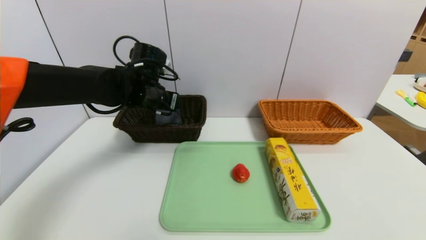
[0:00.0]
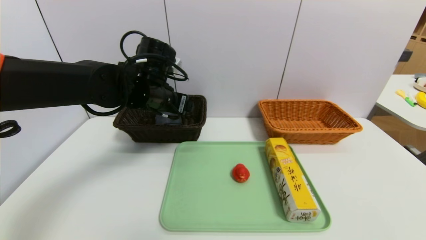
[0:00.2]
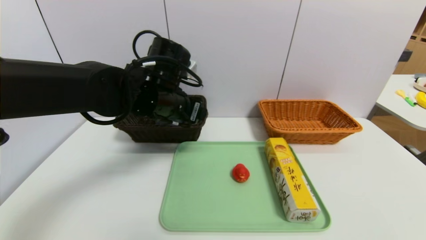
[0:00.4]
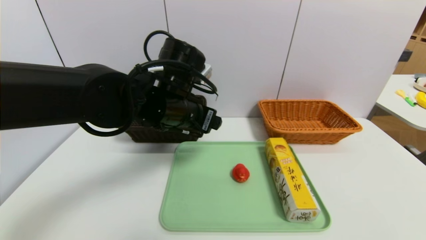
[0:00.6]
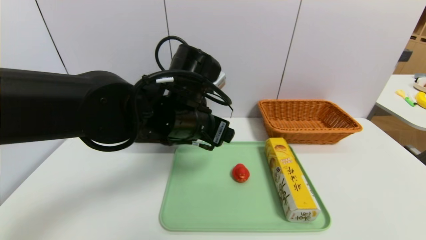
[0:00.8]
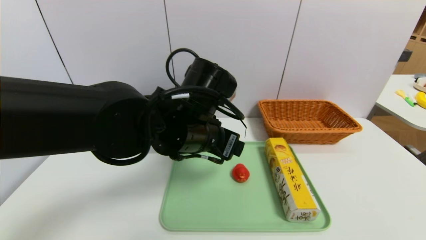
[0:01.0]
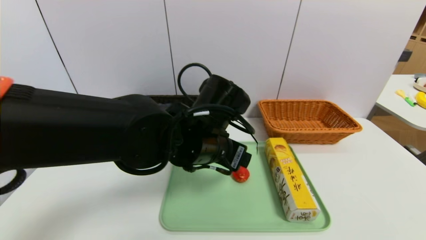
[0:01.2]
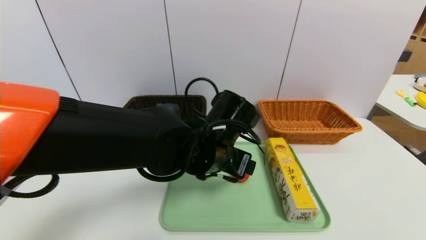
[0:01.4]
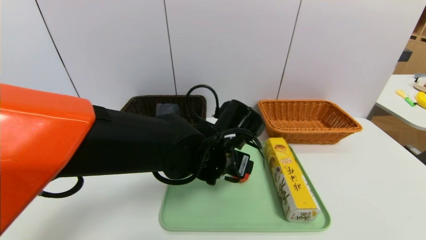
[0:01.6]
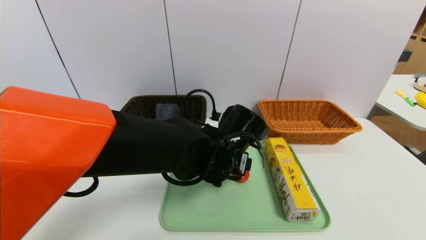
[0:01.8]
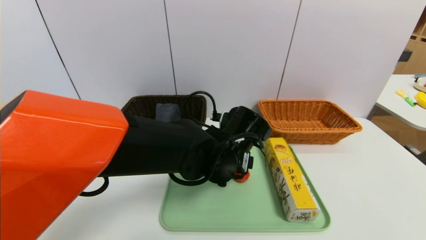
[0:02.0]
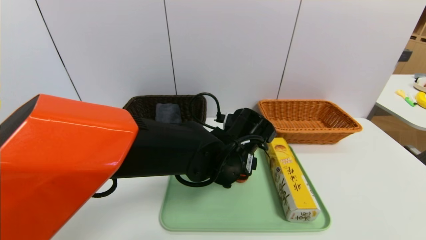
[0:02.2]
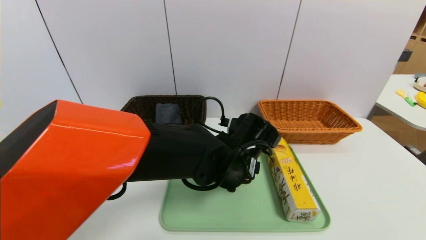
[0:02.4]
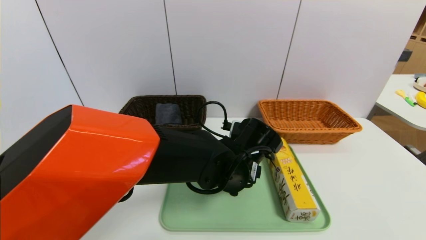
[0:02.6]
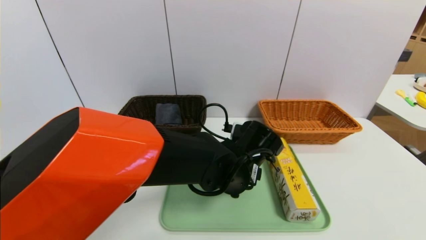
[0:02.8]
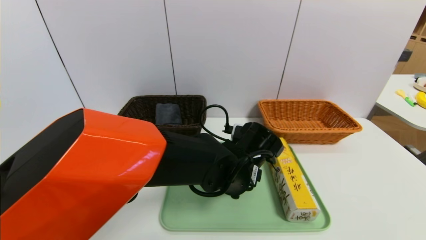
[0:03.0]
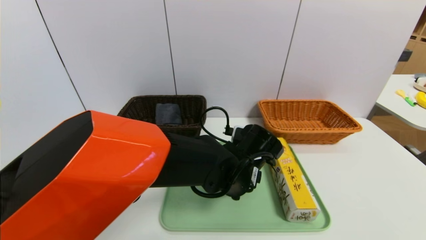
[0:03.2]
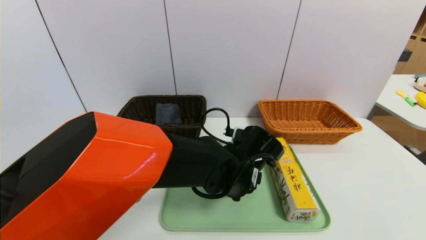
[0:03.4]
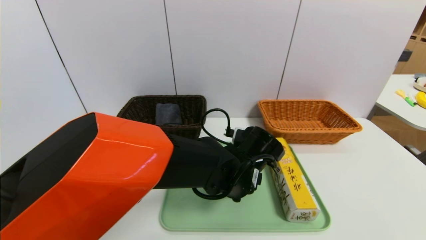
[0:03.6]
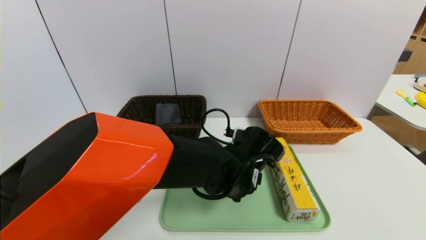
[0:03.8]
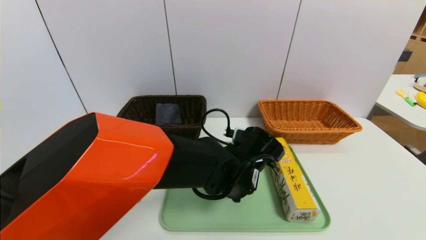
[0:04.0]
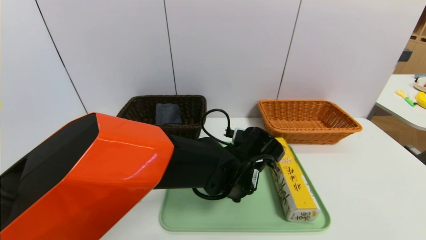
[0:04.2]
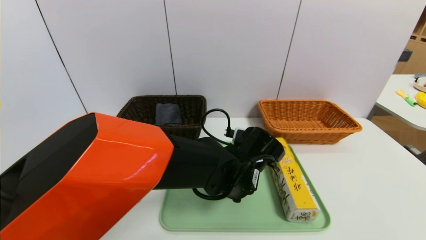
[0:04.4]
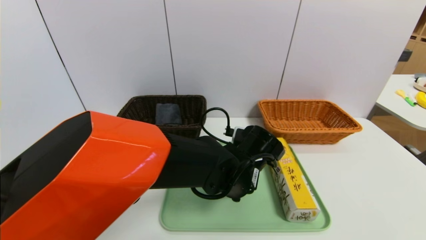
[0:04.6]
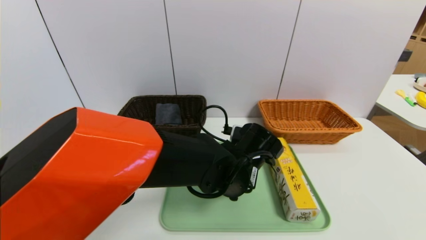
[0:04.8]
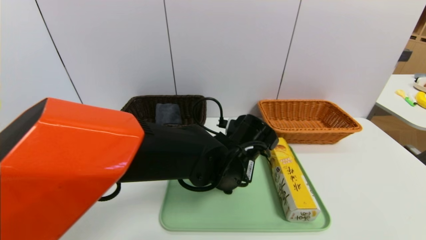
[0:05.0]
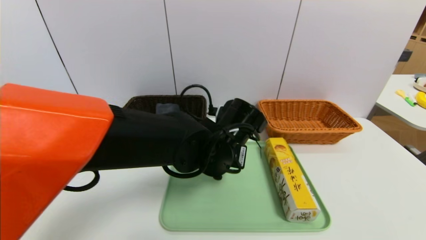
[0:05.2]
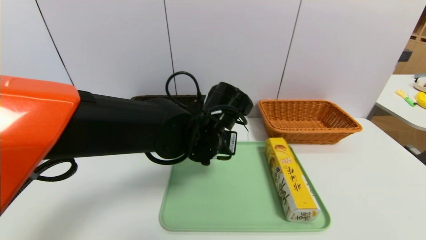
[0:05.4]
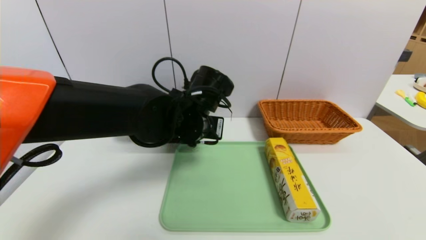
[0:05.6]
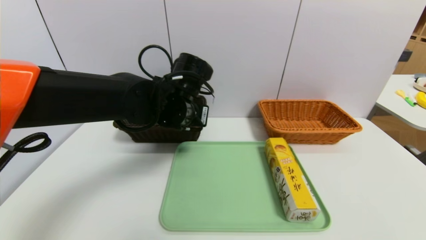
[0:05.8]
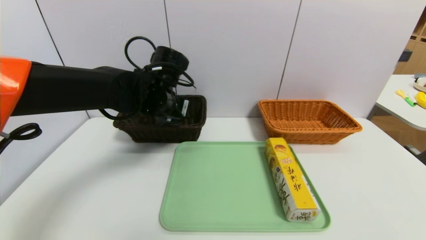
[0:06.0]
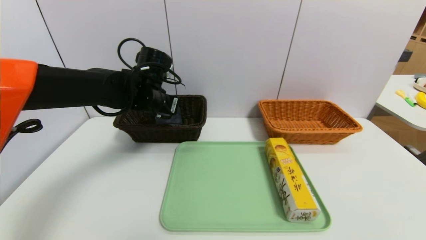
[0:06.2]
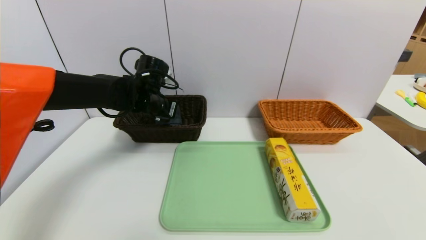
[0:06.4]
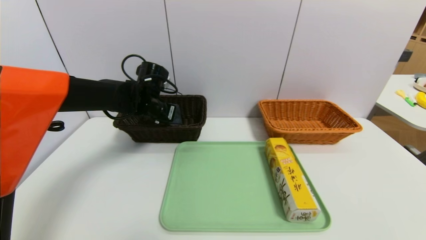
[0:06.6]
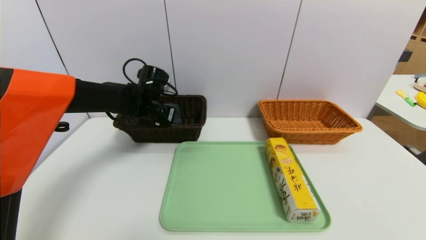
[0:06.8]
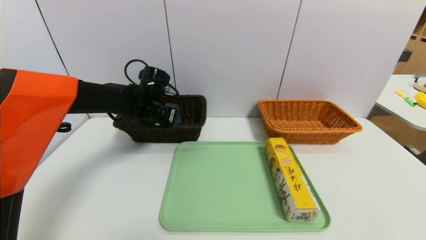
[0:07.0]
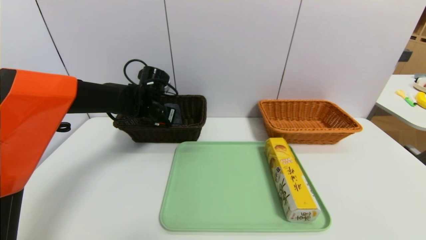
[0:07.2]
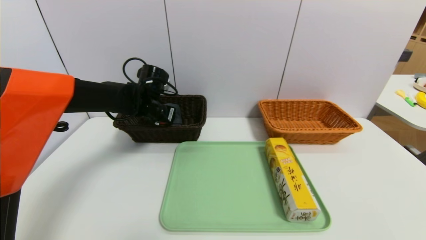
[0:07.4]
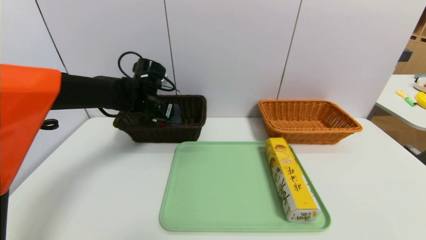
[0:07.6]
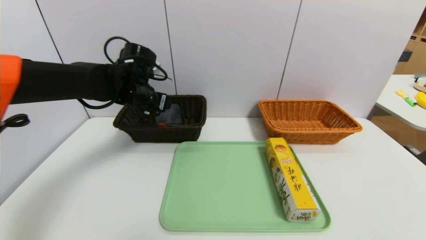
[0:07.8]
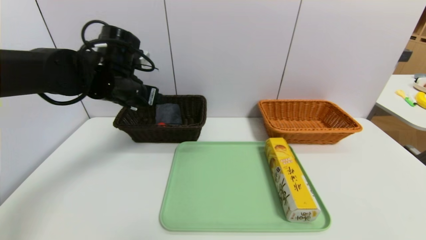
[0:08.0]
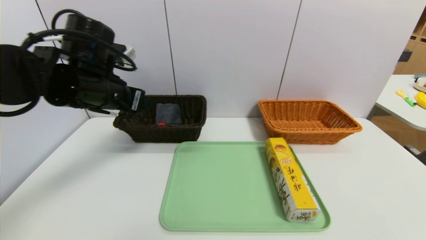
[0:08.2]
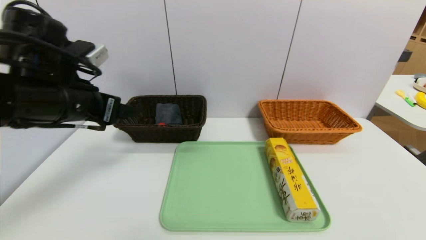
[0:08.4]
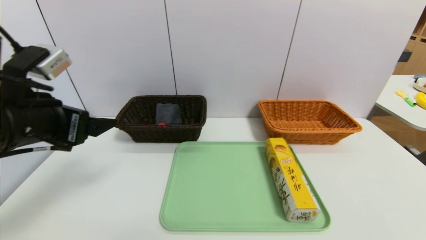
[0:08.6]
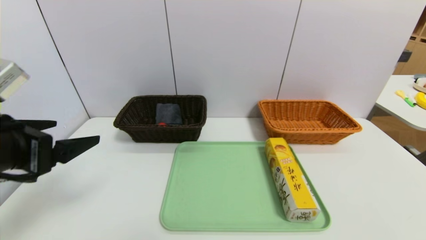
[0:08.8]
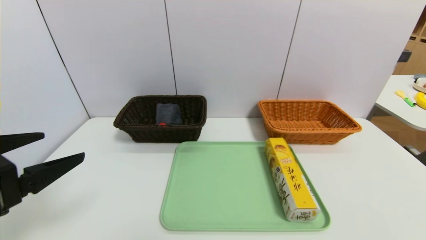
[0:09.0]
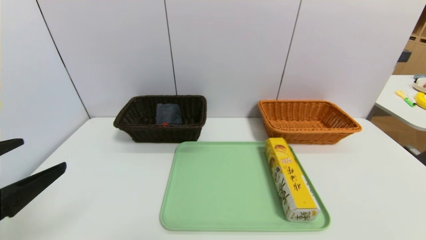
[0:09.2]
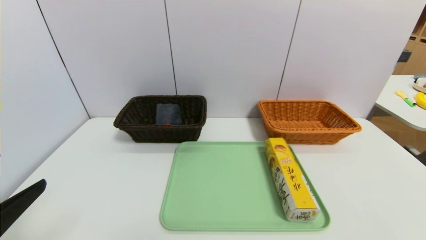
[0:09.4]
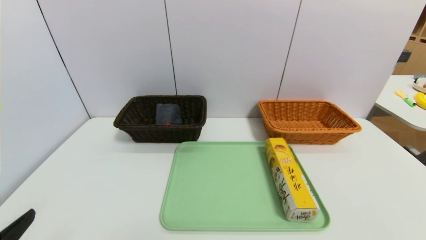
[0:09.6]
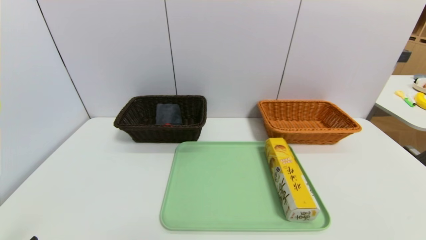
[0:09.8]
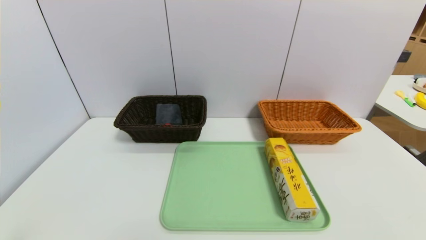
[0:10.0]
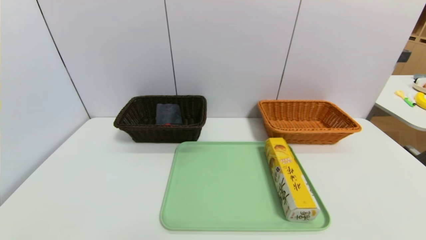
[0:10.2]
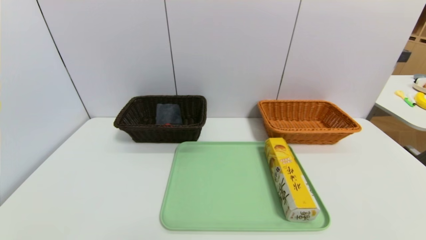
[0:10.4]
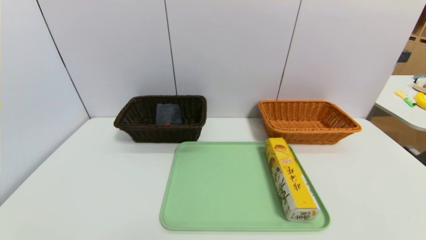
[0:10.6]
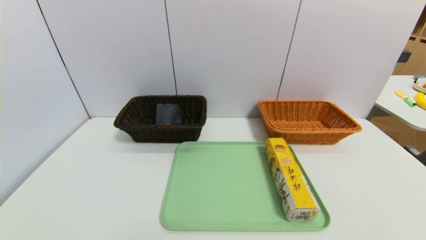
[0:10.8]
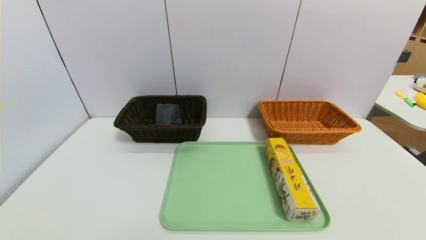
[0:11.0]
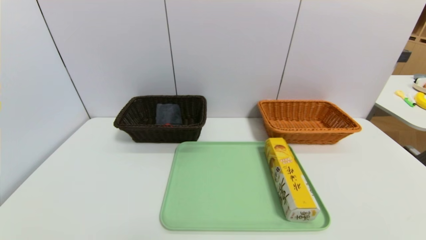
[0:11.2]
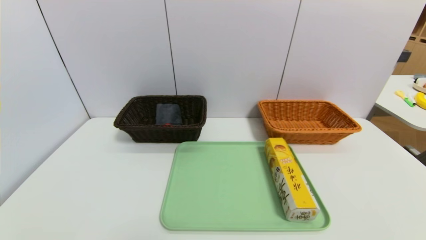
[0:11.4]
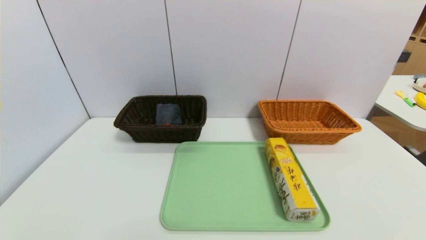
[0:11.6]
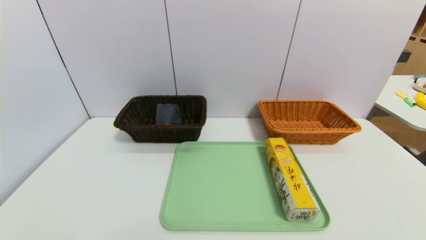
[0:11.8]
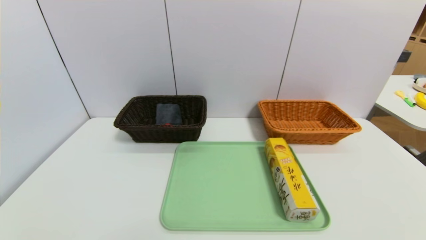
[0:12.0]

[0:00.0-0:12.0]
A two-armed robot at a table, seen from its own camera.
Task of the whole recording: place the food in the right basket with the right gripper, and place the non food items in the left basket with the left gripper.
Step, 0:00.0 to 0:07.4: Grasp the red duck and put it in the left basket.
0:00.0 to 0:01.6: The left gripper is displaced to the right, backward and downward by about 20 cm.
0:01.6 to 0:03.0: The left gripper changes place by some 5 cm.
0:03.0 to 0:04.4: The left gripper closes up.
0:04.4 to 0:06.0: The left gripper goes roughly 20 cm to the left, upward and forward.
0:06.0 to 0:07.6: The left gripper goes about 10 cm forward and to the left, and opens up.
0:07.6 to 0:09.0: The left gripper heads backward, covering approximately 30 cm.
0:09.0 to 0:10.4: The left gripper goes about 20 cm downward and backward.

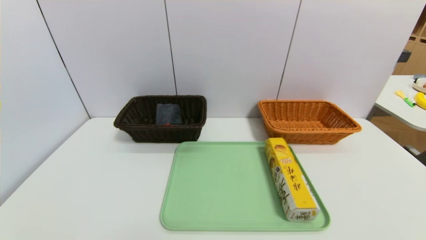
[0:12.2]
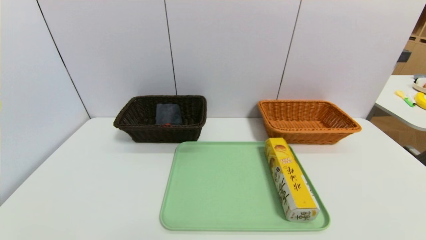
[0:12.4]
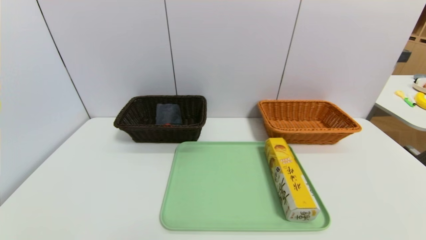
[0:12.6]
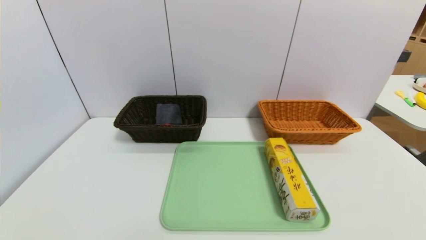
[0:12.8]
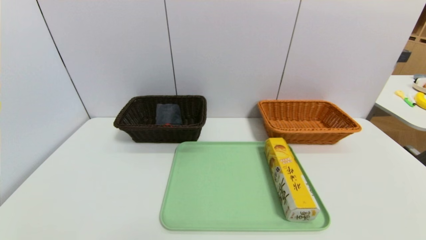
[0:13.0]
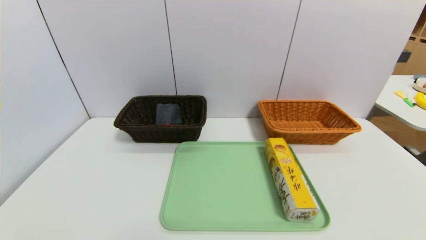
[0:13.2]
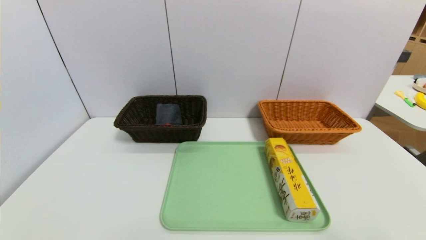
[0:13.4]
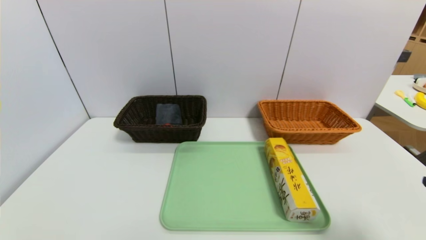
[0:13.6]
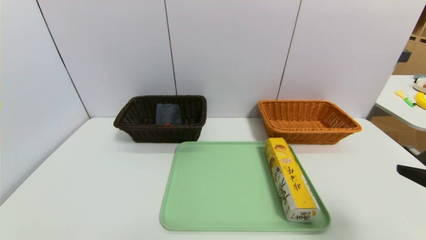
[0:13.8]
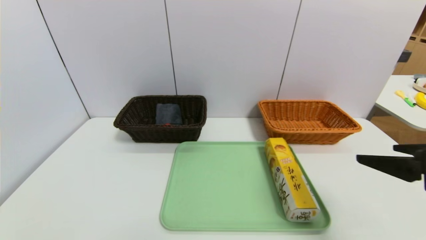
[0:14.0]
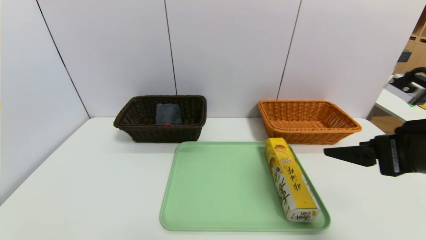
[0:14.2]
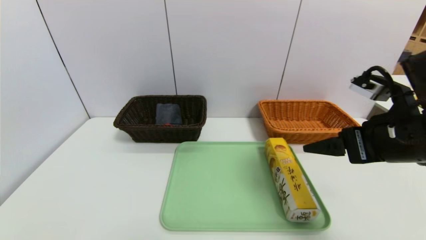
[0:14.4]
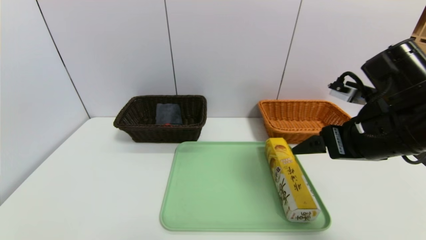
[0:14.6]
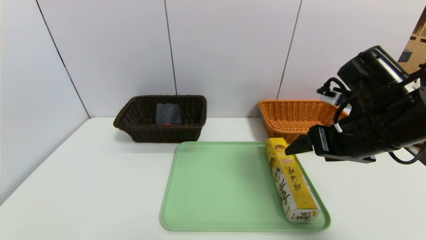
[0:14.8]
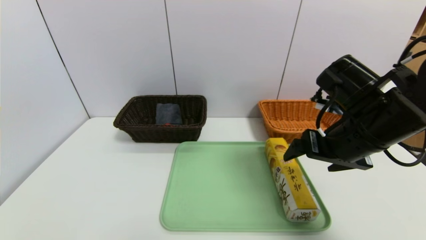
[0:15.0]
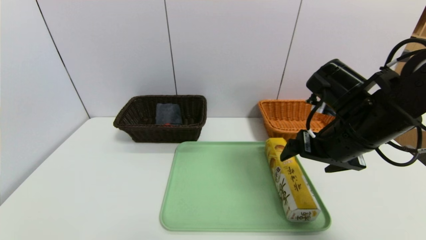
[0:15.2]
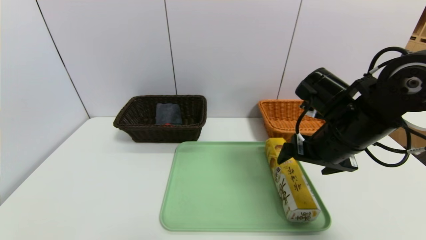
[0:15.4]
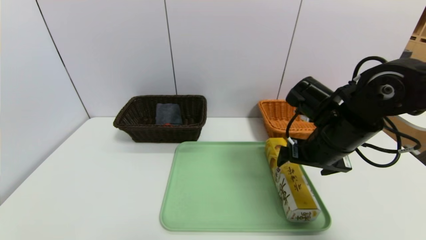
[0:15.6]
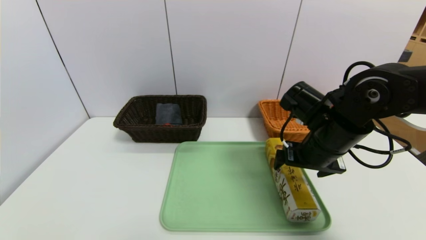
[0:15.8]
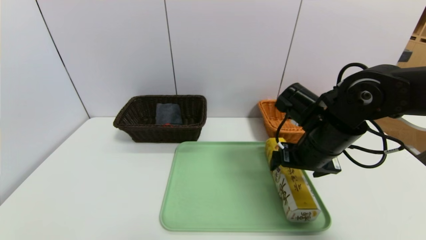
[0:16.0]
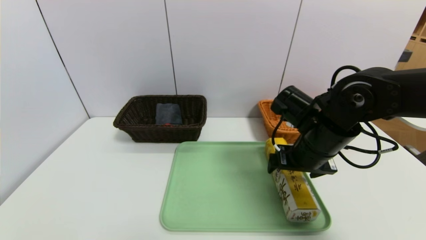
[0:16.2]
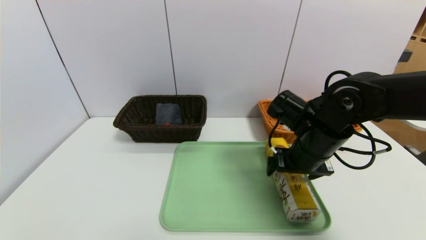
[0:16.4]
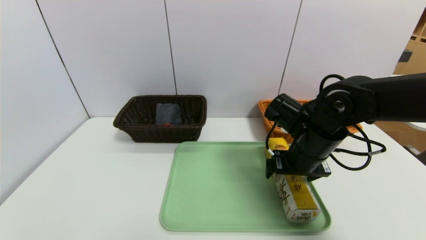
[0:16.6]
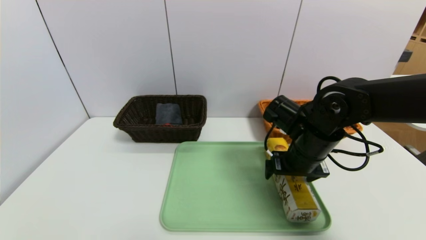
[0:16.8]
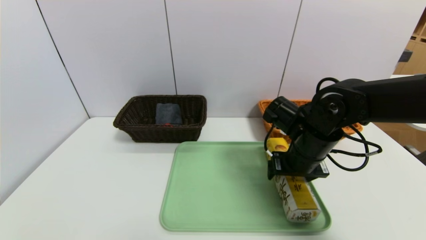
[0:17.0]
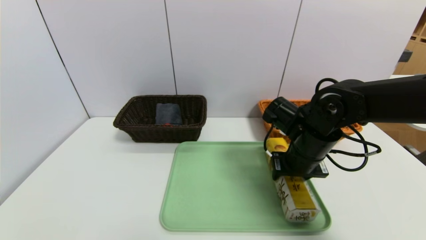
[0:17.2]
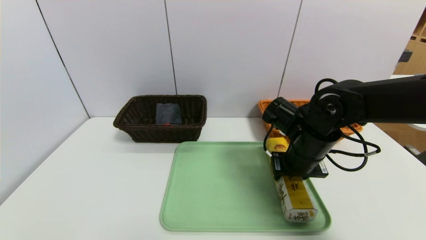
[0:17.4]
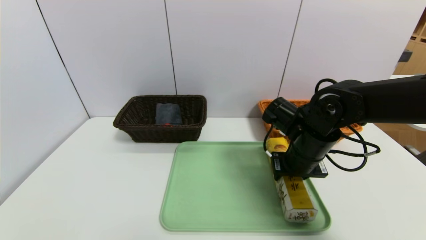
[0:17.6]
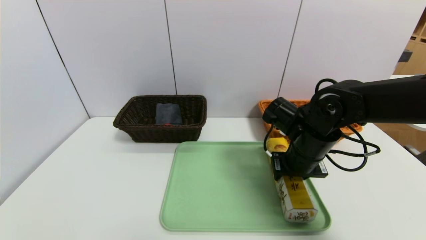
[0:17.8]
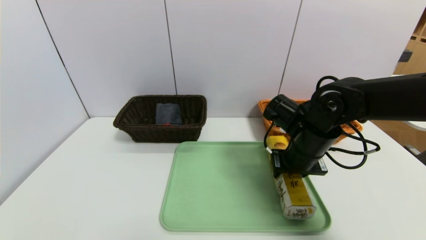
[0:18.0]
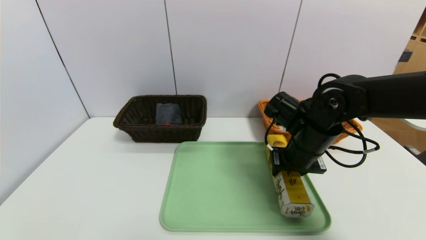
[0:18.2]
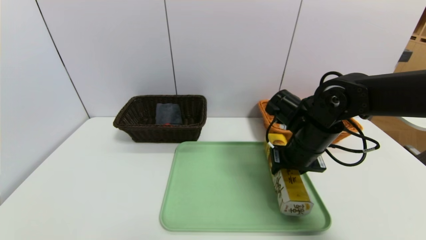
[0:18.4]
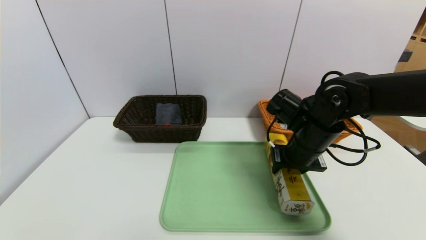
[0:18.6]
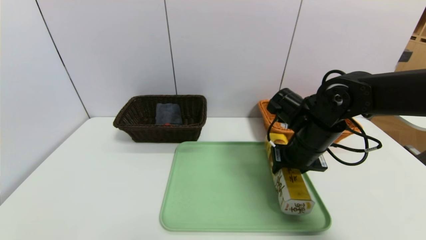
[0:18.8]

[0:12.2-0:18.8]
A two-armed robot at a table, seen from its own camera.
Task of the whole recording: place the food in the right basket with the right gripper, and place the non food items in the left basket with the left gripper.
0:12.2 to 0:13.8: The right gripper moves upward and forward, about 20 cm.
0:13.8 to 0:15.4: The right gripper goes approximately 20 cm forward and to the left.
0:15.4 to 0:17.2: The right gripper travels downward by roughly 5 cm, and closes its fingers.
0:17.2 to 0:18.8: The grippers move only a little.
